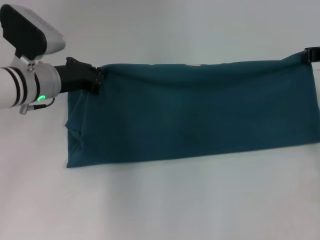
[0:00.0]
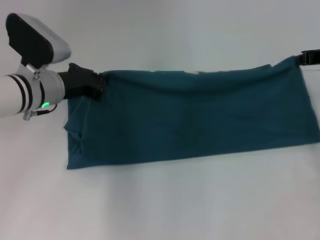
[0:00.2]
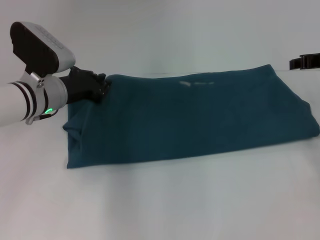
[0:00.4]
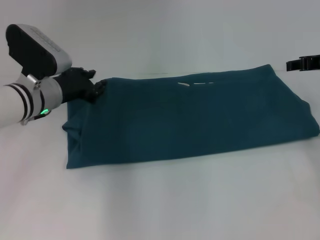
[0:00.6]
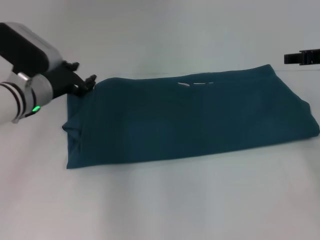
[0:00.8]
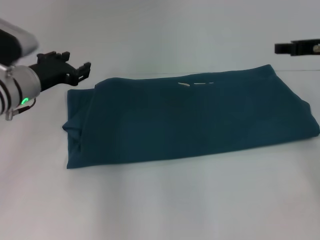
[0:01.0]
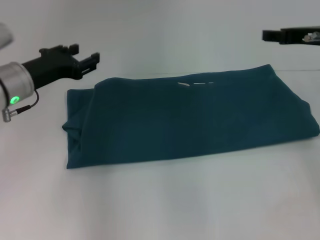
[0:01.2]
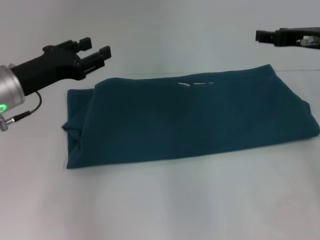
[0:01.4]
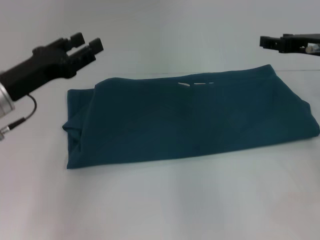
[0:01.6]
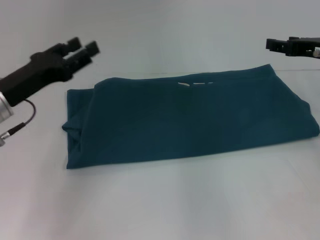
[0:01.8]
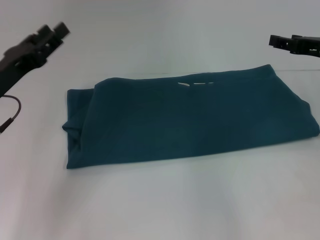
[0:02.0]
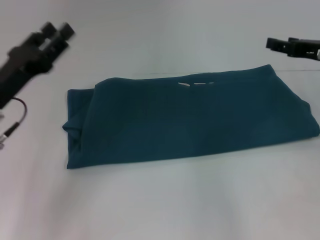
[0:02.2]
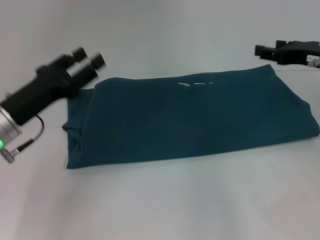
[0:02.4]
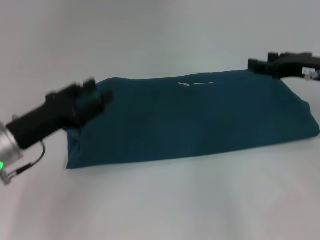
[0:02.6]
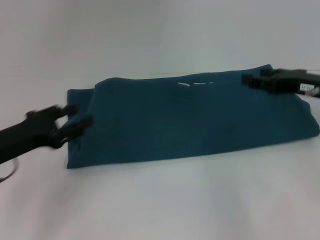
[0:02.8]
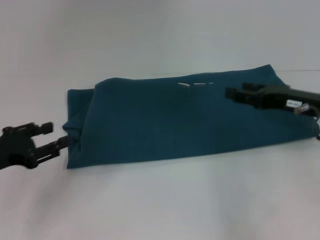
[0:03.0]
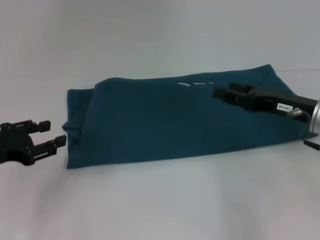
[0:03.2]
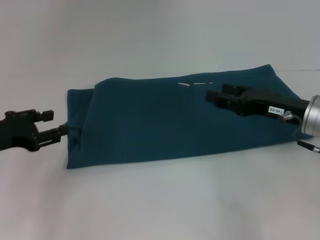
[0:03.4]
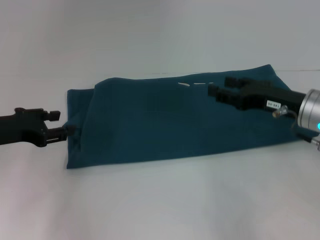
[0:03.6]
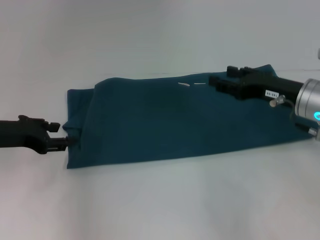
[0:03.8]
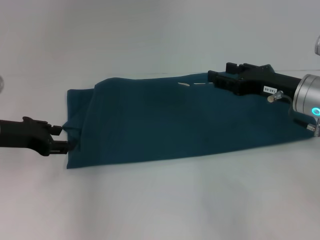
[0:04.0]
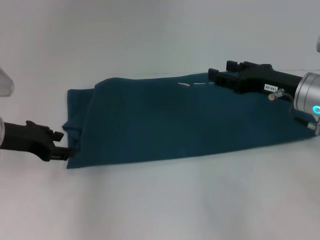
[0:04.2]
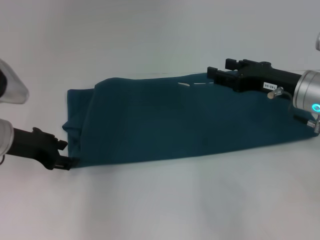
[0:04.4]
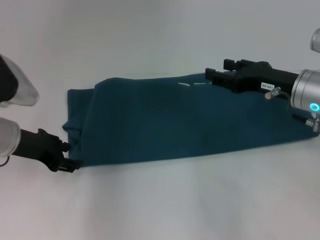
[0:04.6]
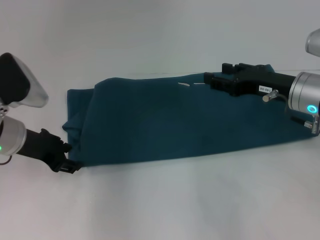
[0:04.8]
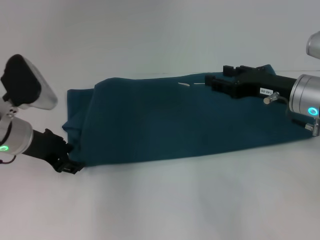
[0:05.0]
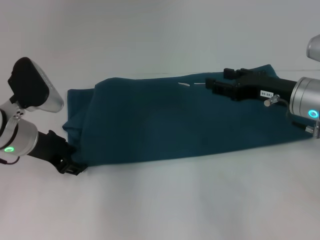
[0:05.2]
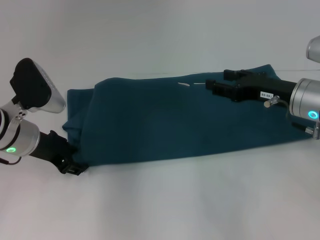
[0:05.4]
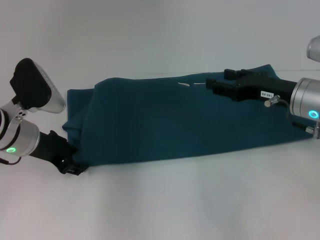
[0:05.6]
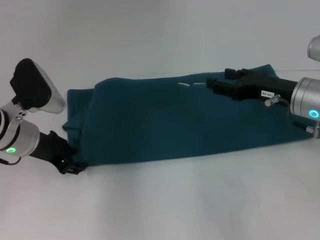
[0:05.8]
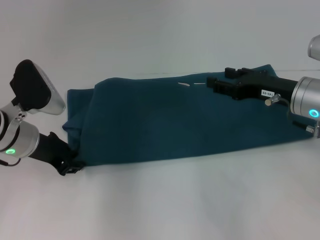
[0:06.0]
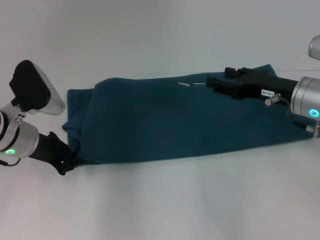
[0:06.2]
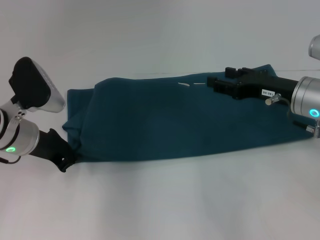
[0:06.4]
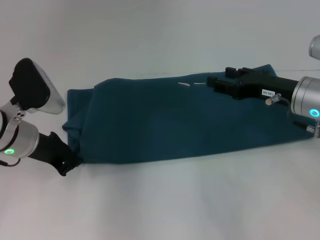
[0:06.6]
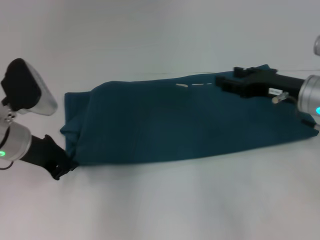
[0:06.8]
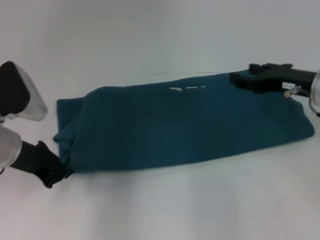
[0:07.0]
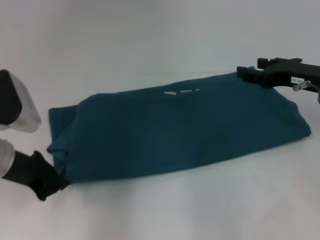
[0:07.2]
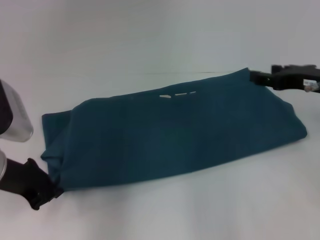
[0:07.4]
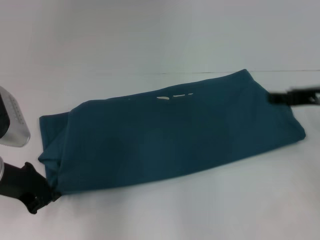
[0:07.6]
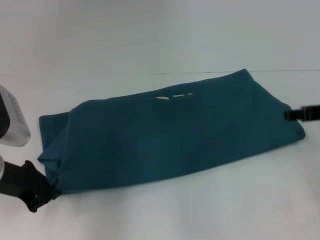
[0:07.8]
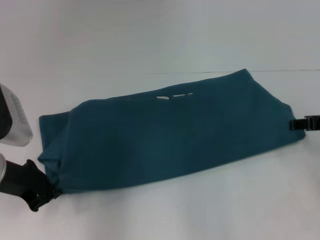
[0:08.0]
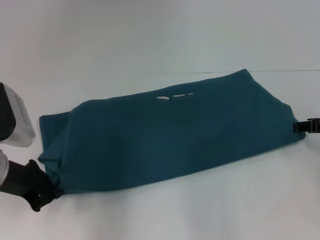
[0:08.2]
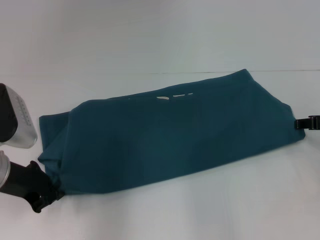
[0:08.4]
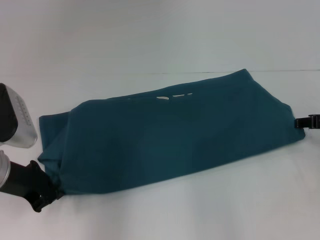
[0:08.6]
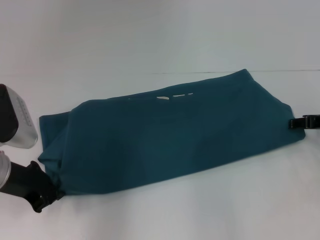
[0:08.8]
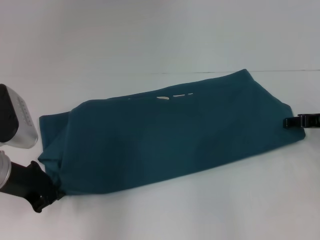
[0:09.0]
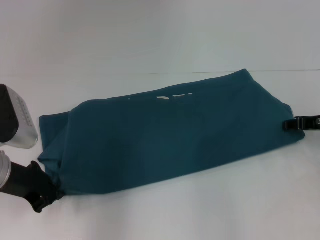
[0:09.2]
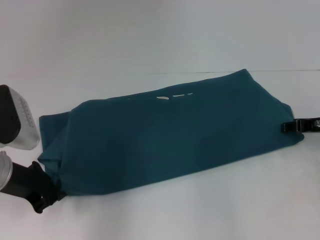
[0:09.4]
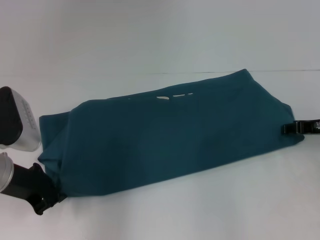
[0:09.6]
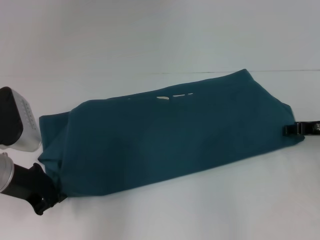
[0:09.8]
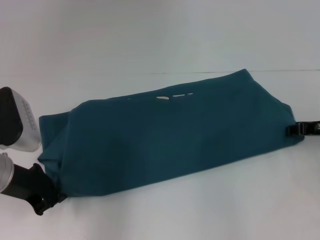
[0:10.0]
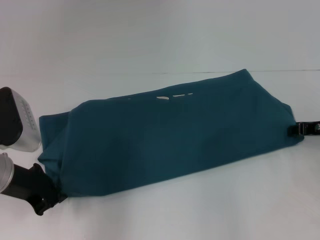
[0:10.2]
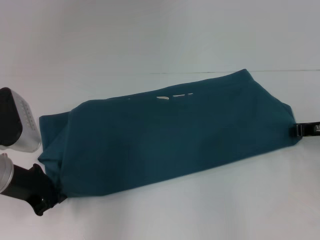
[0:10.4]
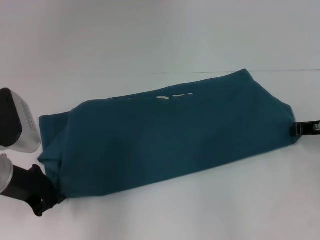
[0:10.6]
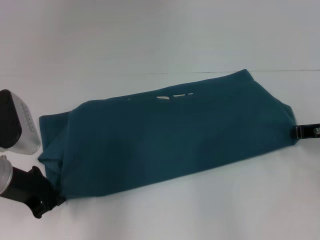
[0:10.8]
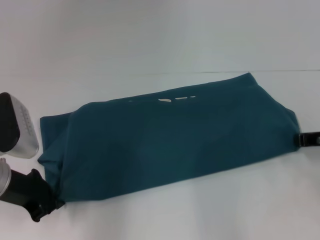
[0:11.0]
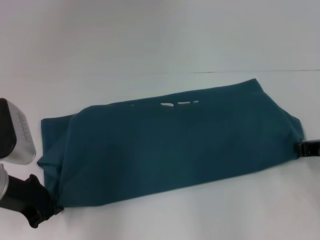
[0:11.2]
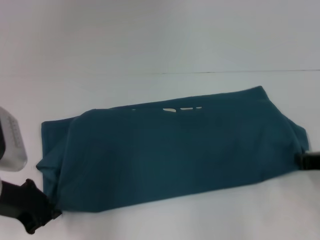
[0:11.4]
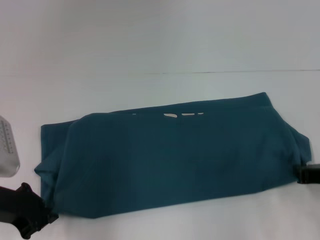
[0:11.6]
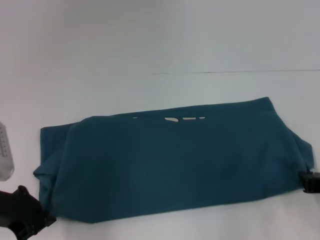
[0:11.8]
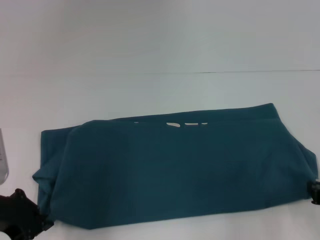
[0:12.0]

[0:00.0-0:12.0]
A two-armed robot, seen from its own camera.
0:00.0 to 0:01.6: The left gripper travels backward by approximately 10 cm, and opens its fingers. The right gripper opens its fingers.
0:01.6 to 0:03.0: The left gripper is displaced to the left, backward and downward by about 10 cm. Meanwhile the right gripper shifts approximately 10 cm downward and backward.
0:03.0 to 0:04.4: The left gripper is displaced forward by roughly 10 cm.
0:04.4 to 0:06.0: The grippers move only a little.
0:06.0 to 0:07.6: The left gripper is displaced backward by approximately 5 cm, and closes up. The right gripper moves roughly 5 cm.
0:07.6 to 0:09.0: The right gripper goes about 5 cm downward.
0:09.0 to 0:10.4: The right gripper closes.
0:10.4 to 0:12.0: The right gripper travels backward by some 15 cm, while the left gripper shifts by some 5 cm.

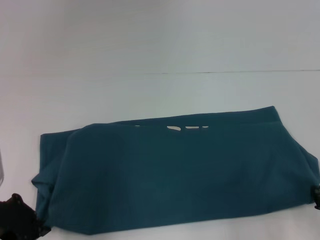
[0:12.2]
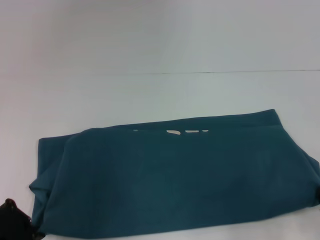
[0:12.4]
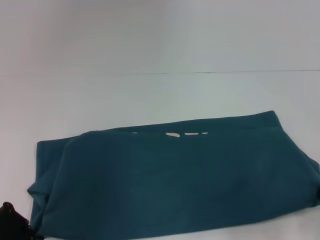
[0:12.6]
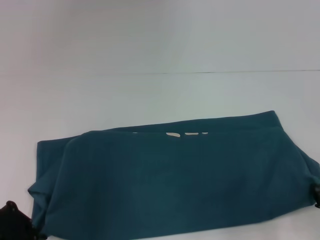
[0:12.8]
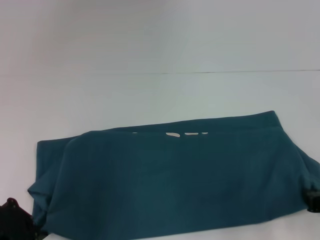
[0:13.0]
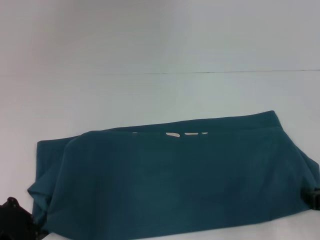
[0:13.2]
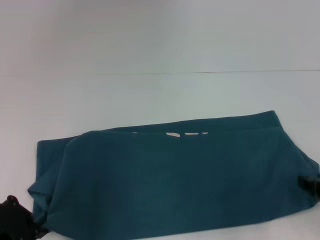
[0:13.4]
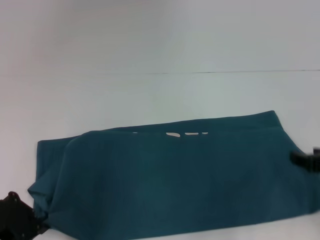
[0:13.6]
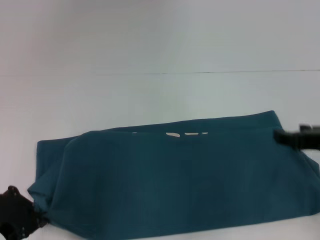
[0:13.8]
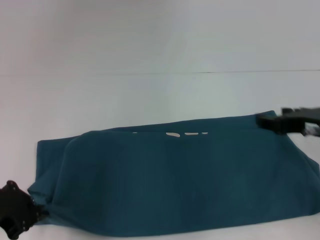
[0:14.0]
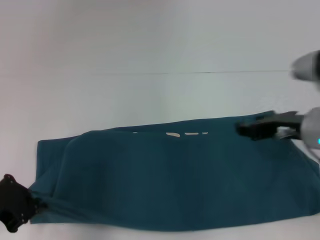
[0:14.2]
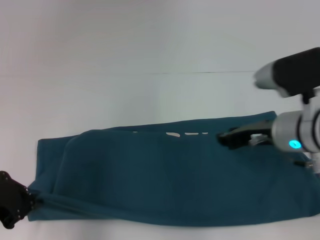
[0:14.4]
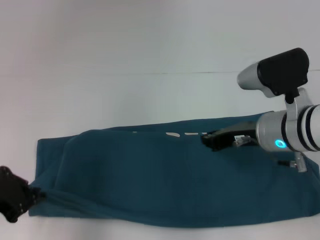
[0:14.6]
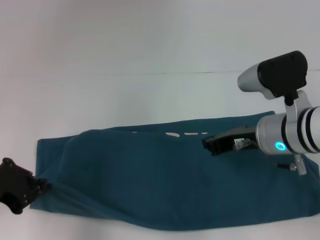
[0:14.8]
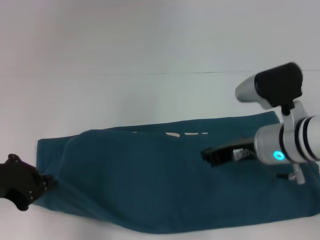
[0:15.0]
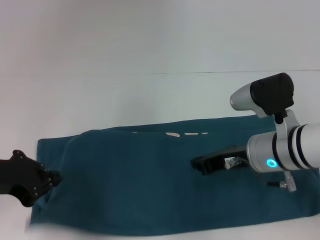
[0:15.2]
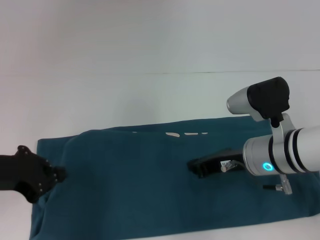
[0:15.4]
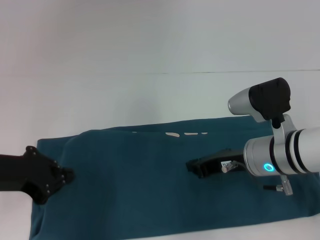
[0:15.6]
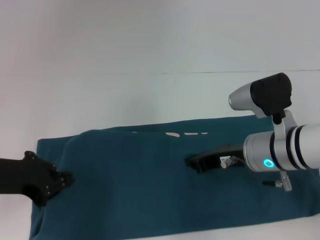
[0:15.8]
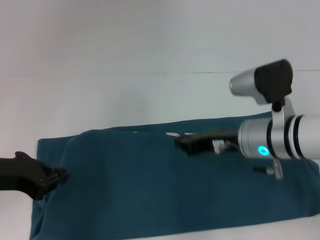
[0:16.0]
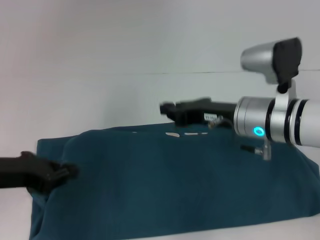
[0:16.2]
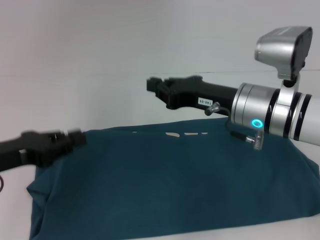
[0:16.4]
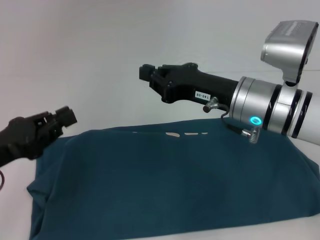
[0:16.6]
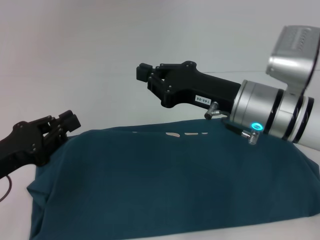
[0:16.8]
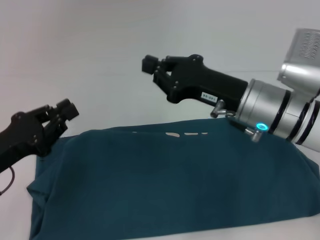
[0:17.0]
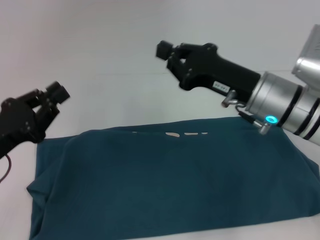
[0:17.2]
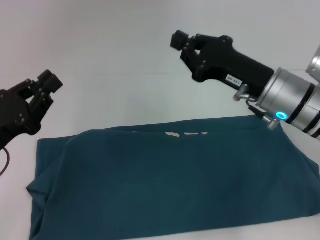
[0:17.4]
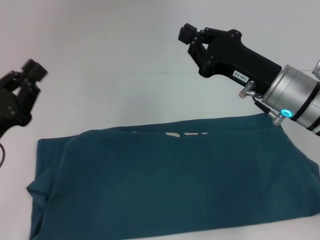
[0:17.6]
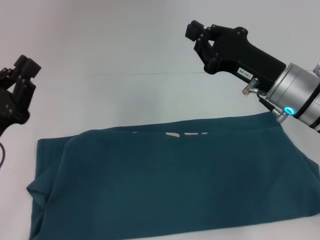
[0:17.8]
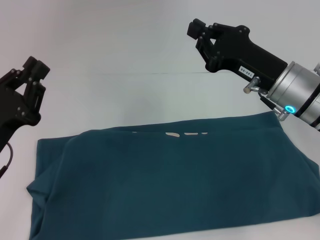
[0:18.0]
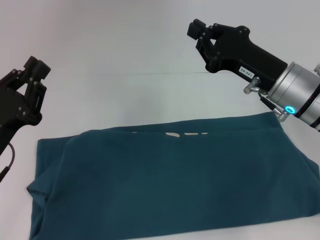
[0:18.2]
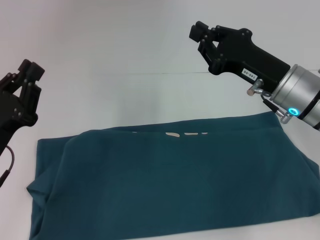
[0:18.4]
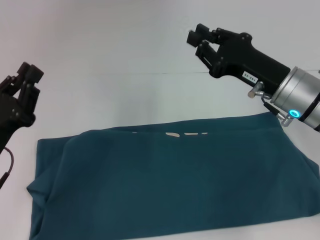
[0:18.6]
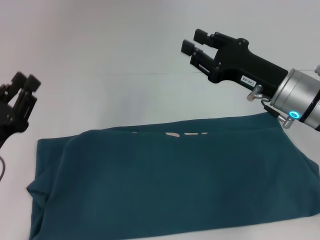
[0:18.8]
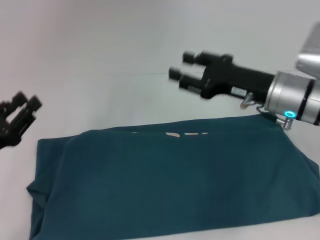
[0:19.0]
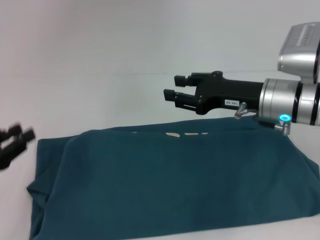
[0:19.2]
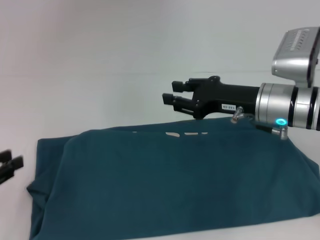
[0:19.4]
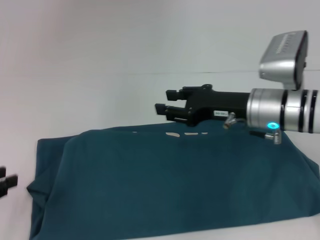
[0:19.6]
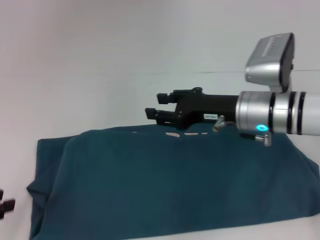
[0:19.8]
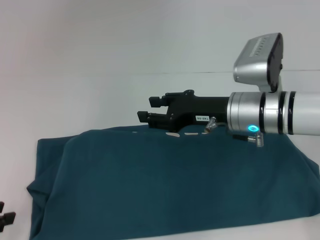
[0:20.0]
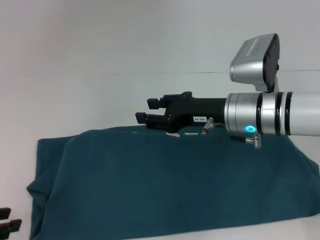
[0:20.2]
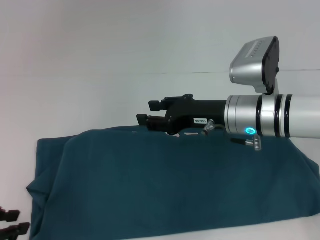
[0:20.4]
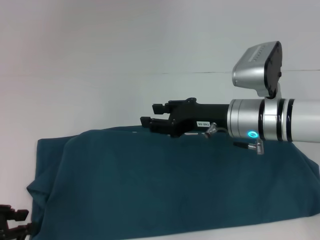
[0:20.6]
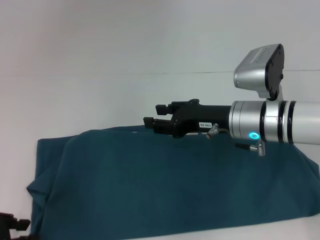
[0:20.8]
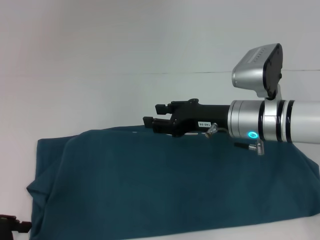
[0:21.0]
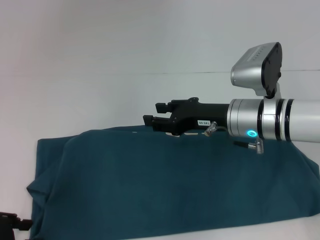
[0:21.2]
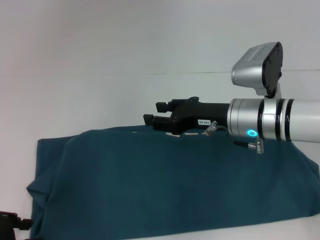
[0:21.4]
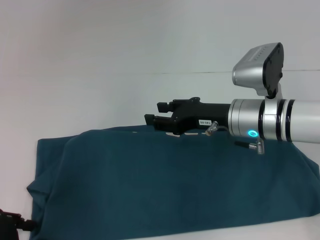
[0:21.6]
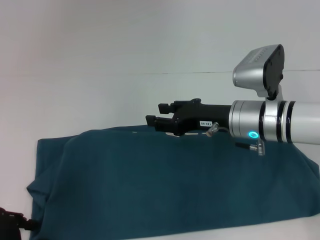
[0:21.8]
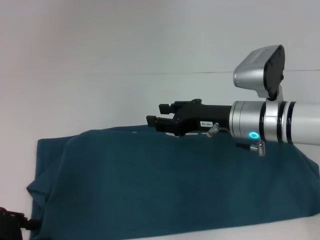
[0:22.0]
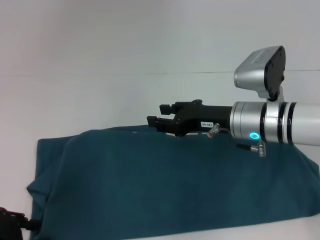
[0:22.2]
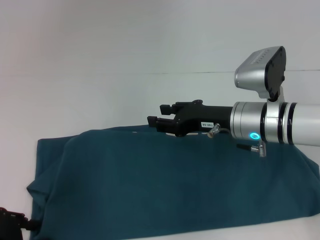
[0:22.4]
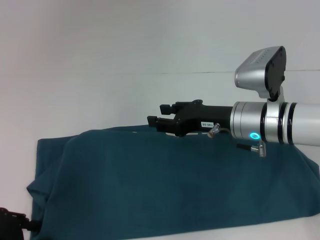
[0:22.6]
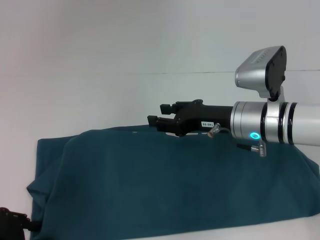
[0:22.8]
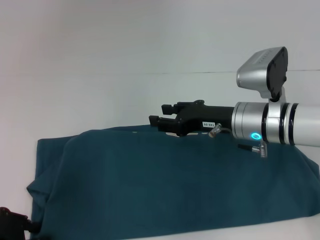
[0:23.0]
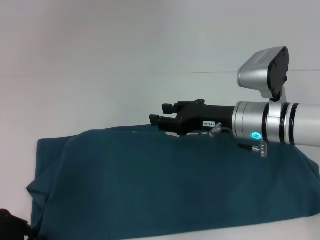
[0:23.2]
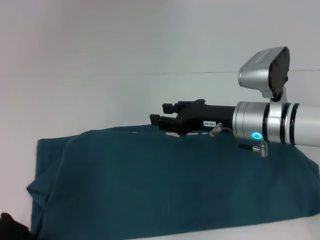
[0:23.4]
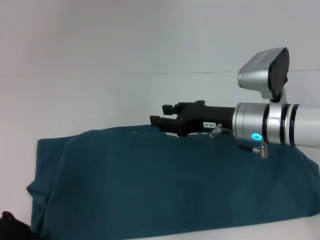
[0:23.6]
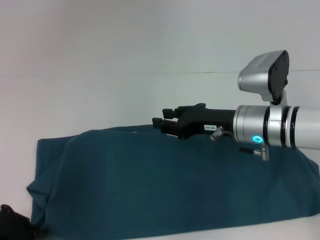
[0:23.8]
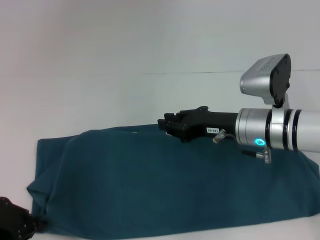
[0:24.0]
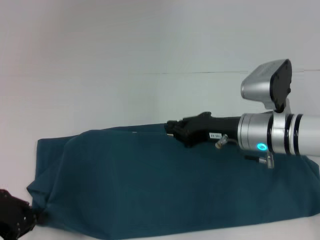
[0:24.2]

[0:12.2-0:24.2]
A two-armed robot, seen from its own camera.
Step, 0:12.2 to 0:15.2: Pull the clothes with your left hand.
Step, 0:12.2 to 0:15.2: Pull the clothes with your right hand.
0:12.2 to 0:13.8: The right gripper goes about 10 cm upward and forward, and opens up.
0:13.8 to 0:15.2: The right gripper goes approximately 15 cm to the left, forward and downward, and closes.
0:15.2 to 0:16.6: The right gripper moves upward, roughly 5 cm.
0:16.6 to 0:18.2: The right gripper travels to the right by roughly 5 cm.
0:18.2 to 0:19.8: The left gripper goes approximately 10 cm to the left; the right gripper opens its fingers.
0:21.2 to 0:22.6: The grippers make only small movements.
0:22.6 to 0:24.2: The left gripper closes its fingers.
